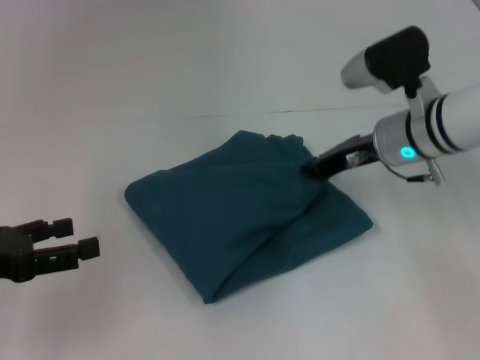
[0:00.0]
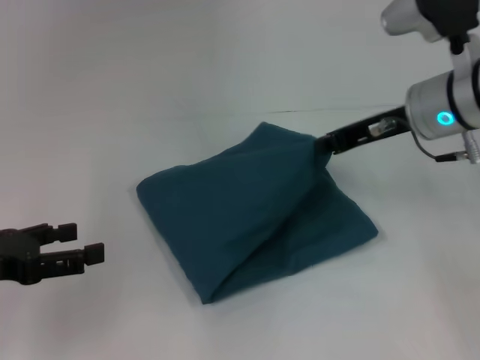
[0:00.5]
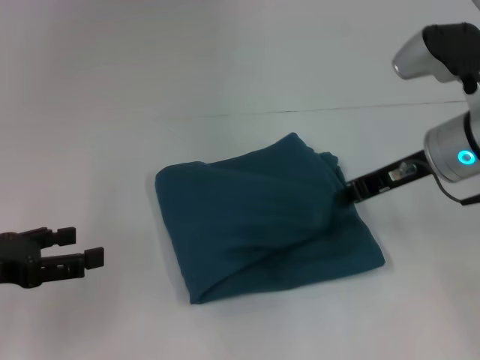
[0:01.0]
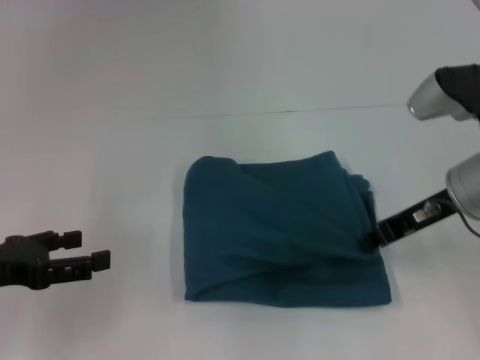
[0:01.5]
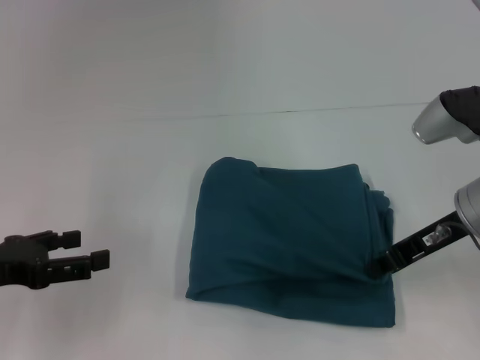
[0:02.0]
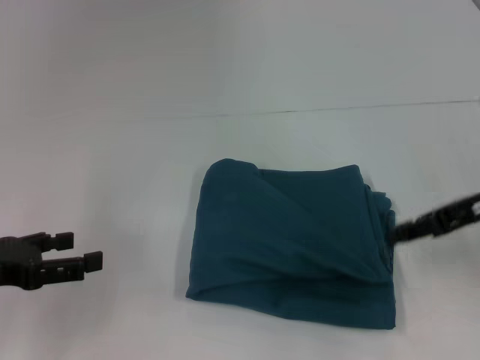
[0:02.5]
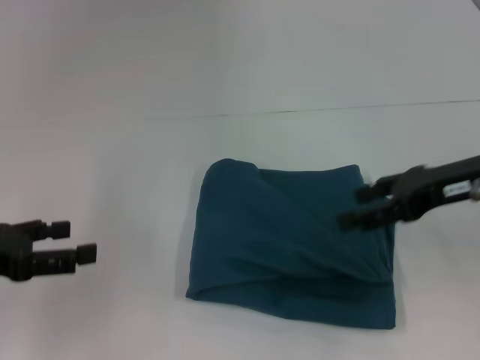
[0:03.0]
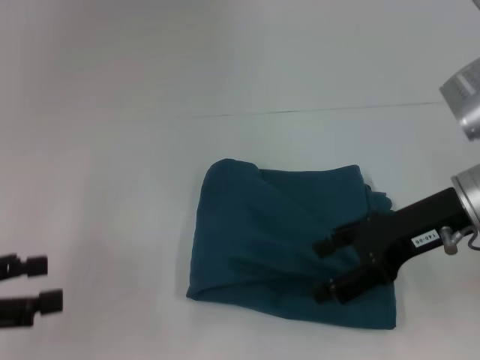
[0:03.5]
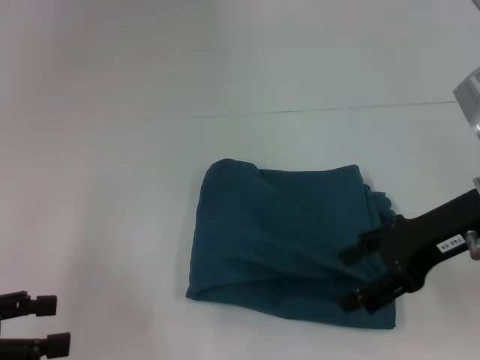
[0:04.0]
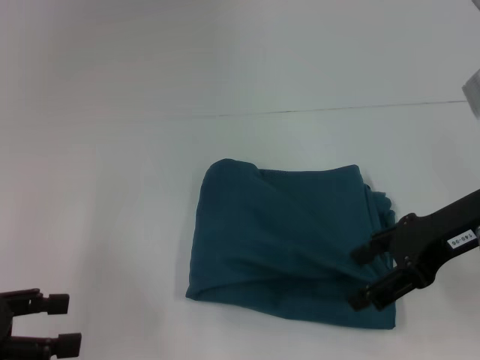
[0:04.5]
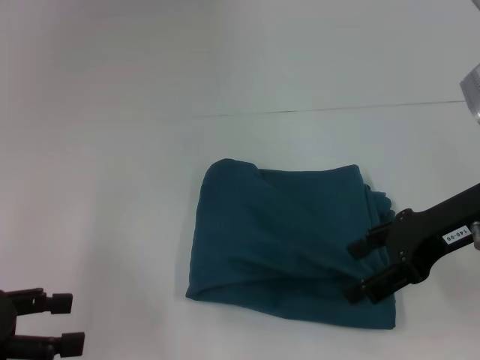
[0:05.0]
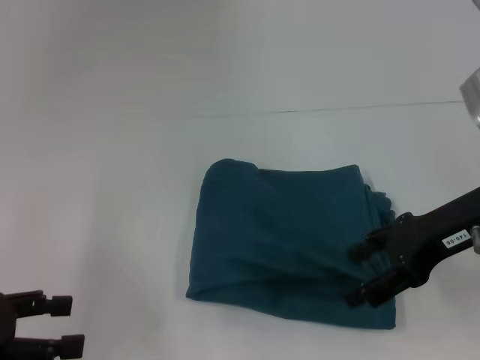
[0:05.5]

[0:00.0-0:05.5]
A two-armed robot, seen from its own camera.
0:00.0 to 0:02.0: The right gripper travels backward and to the right by about 10 cm.
0:02.0 to 0:03.5: The left gripper changes place by about 5 cm, while the right gripper opens up.
0:03.5 to 0:05.5: The grippers stay close to where they were, moving slightly.

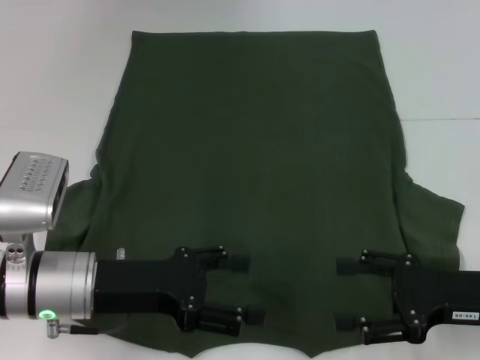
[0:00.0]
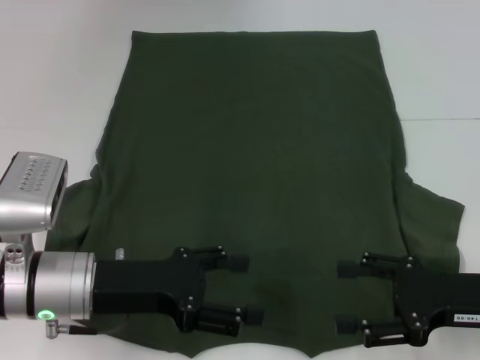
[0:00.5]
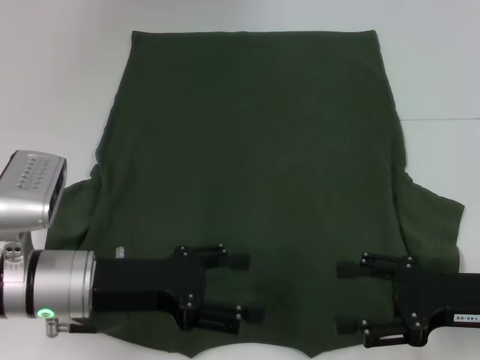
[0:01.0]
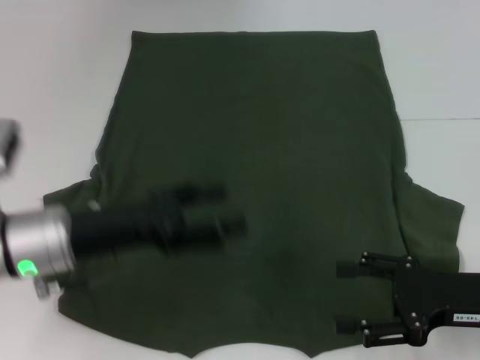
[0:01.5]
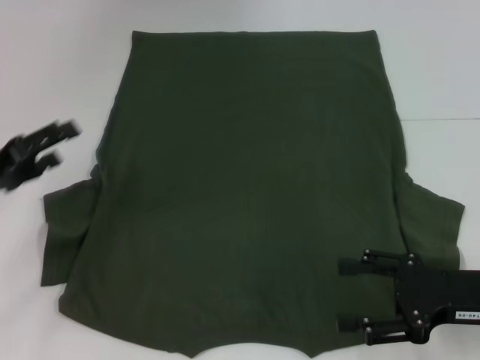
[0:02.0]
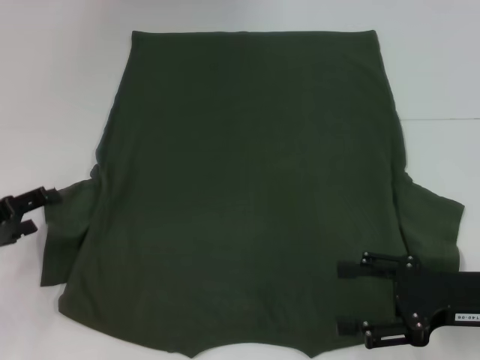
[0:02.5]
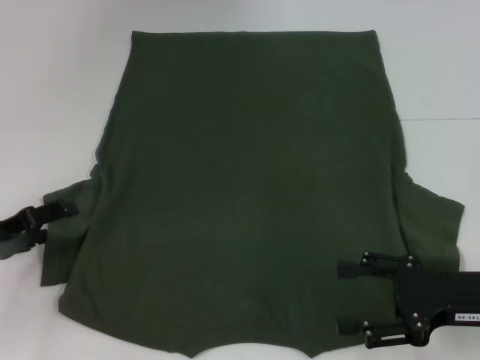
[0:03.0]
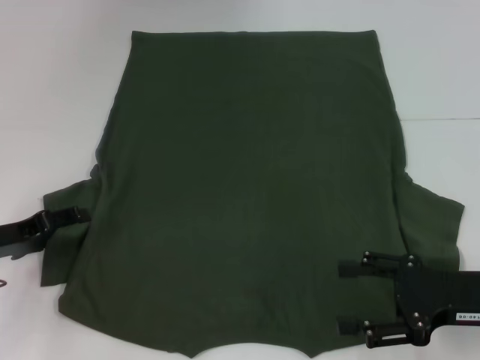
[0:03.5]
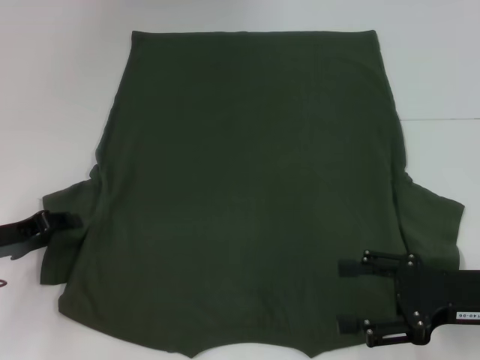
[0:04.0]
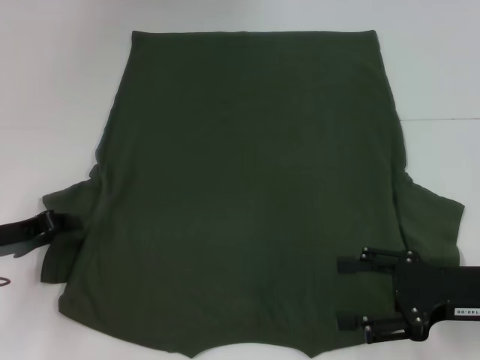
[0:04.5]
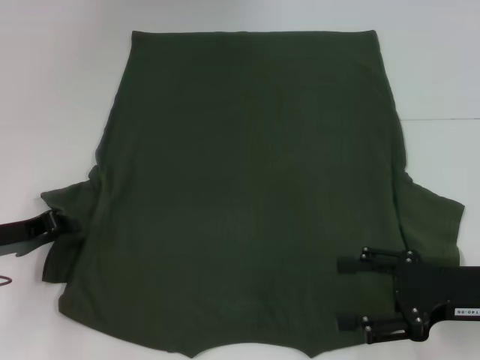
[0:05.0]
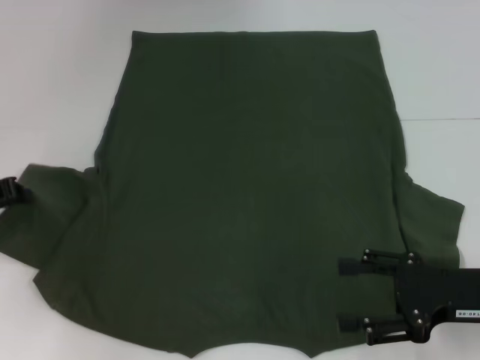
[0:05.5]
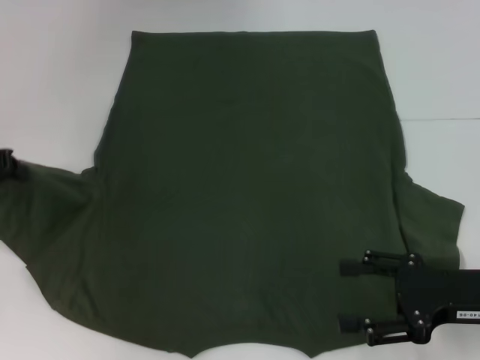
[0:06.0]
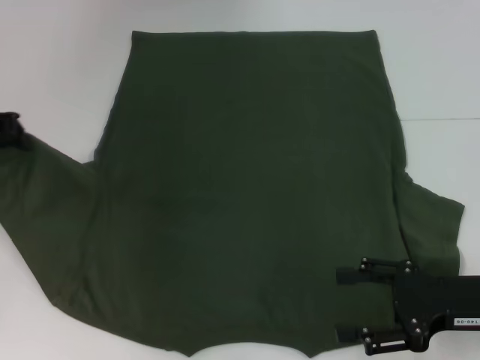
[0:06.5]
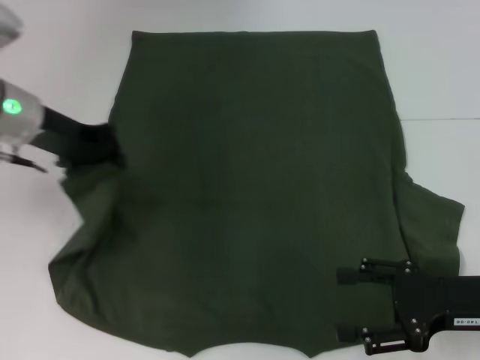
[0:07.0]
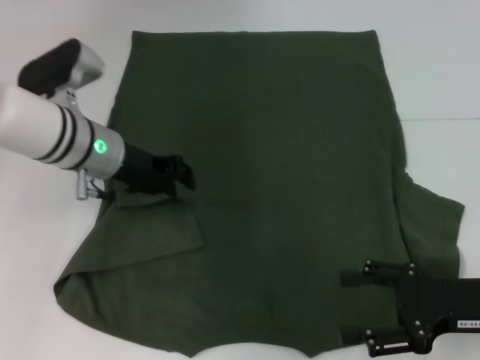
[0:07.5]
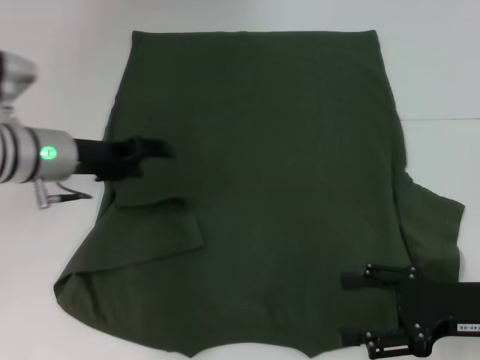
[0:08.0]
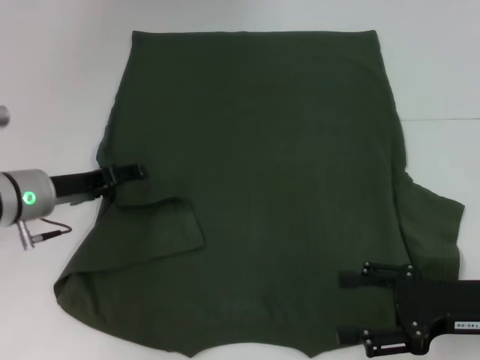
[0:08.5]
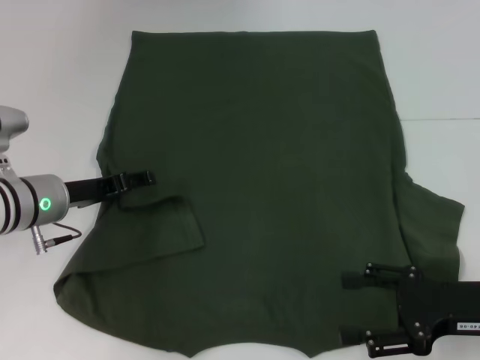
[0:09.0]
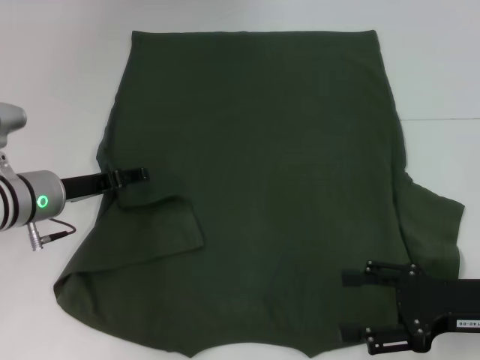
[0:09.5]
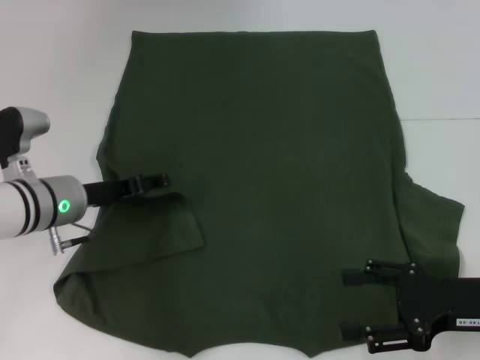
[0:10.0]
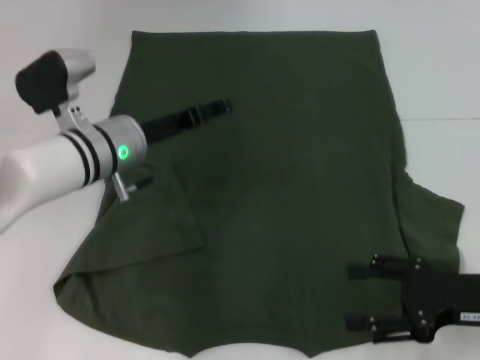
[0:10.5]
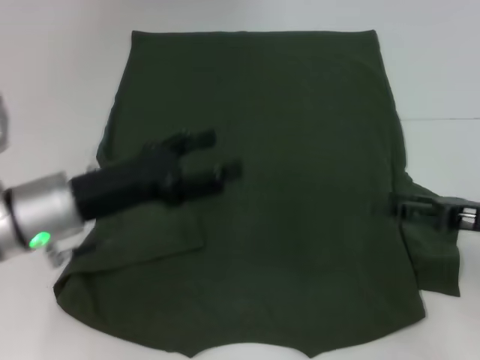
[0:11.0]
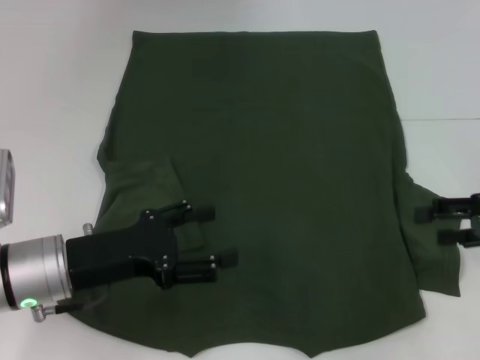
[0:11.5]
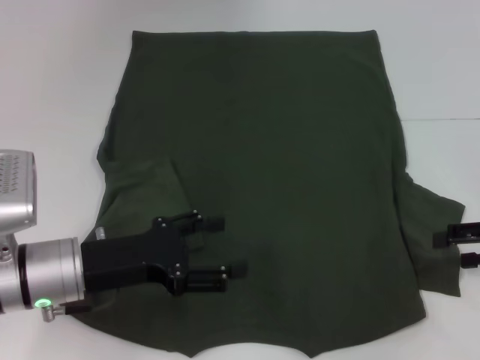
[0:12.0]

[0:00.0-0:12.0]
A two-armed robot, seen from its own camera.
Step, 0:00.0 to 0:10.0: Fold the bottom left sleeve with your left hand.
0:00.0 to 0:02.0: The left gripper goes some 15 cm to the left.
0:02.0 to 0:04.0: The left gripper travels downward by approximately 5 cm, and closes up.
0:04.0 to 0:06.0: The left gripper goes some 10 cm upward and forward, and closes up.
0:06.0 to 0:08.0: The left gripper is displaced to the right by roughly 10 cm, and opens its fingers.
0:08.0 to 0:10.0: The left gripper is displaced downward by some 5 cm.
0:10.0 to 0:12.0: The left gripper moves backward, roughly 10 cm; the right gripper goes approximately 10 cm to the right and forward.

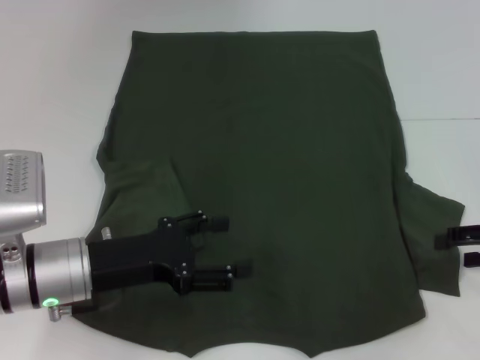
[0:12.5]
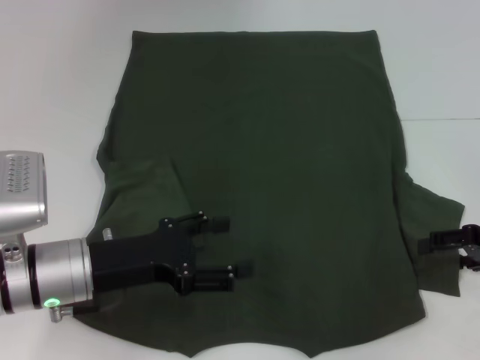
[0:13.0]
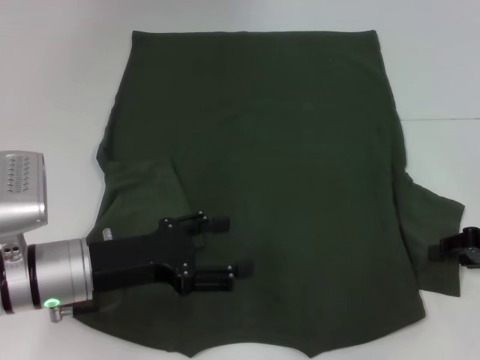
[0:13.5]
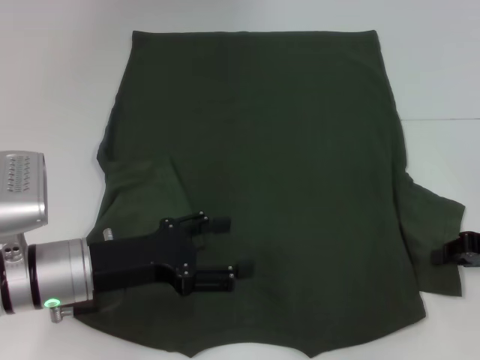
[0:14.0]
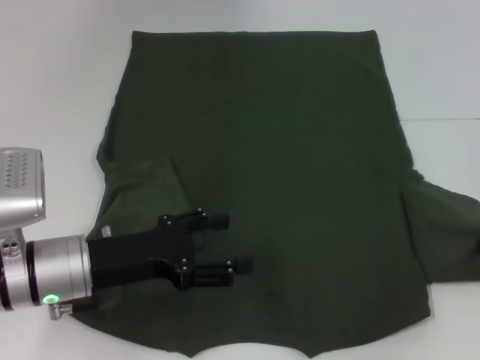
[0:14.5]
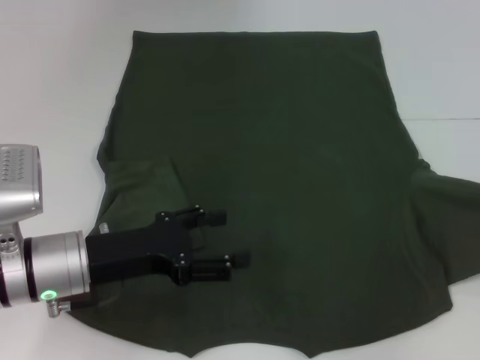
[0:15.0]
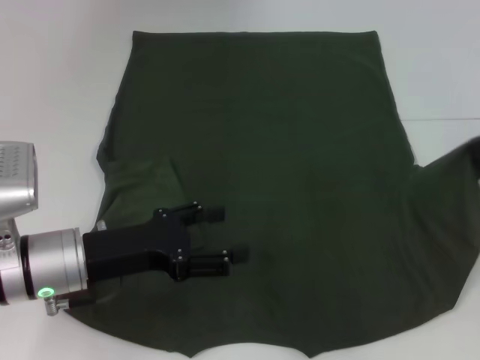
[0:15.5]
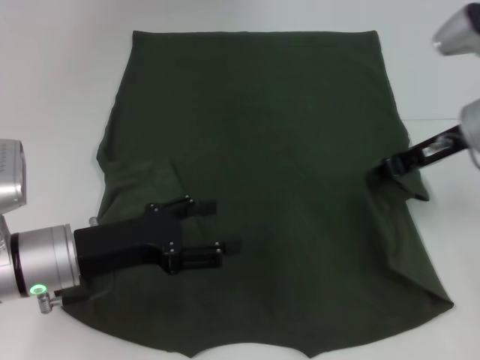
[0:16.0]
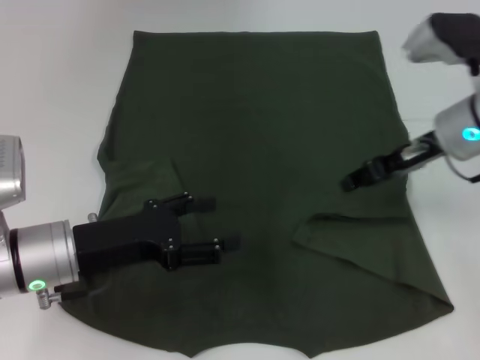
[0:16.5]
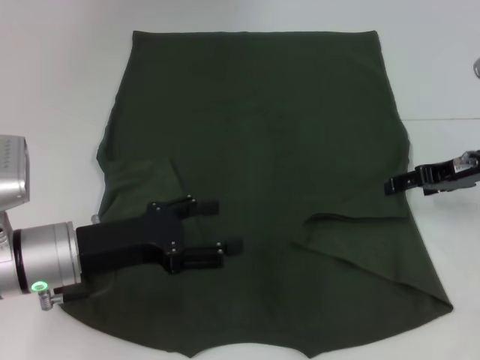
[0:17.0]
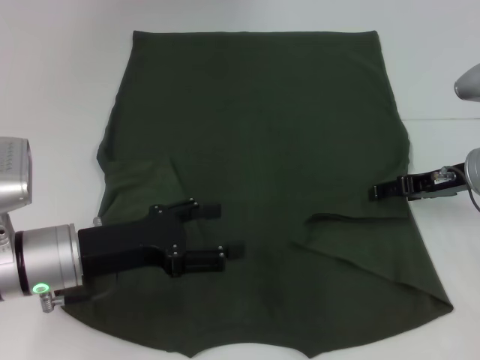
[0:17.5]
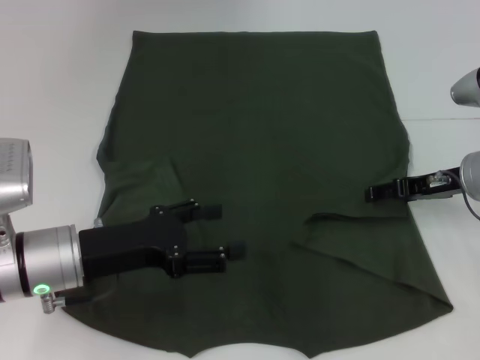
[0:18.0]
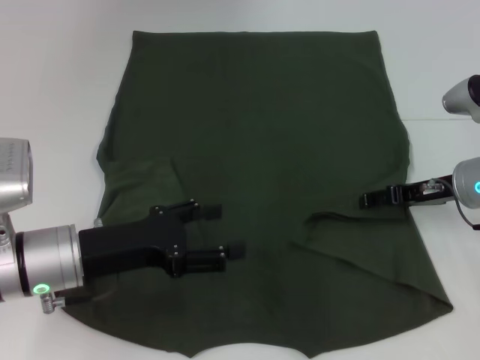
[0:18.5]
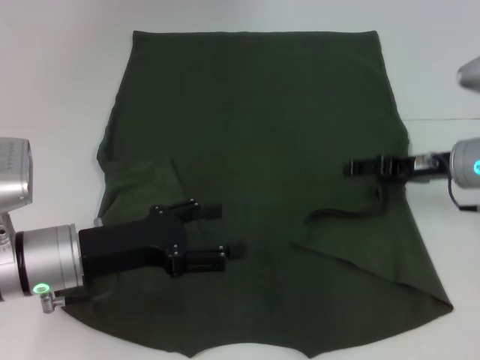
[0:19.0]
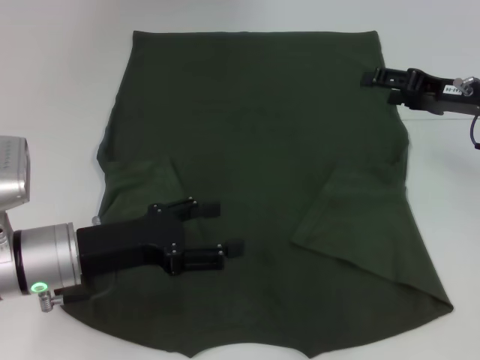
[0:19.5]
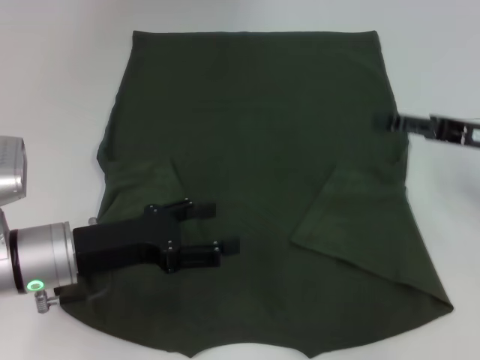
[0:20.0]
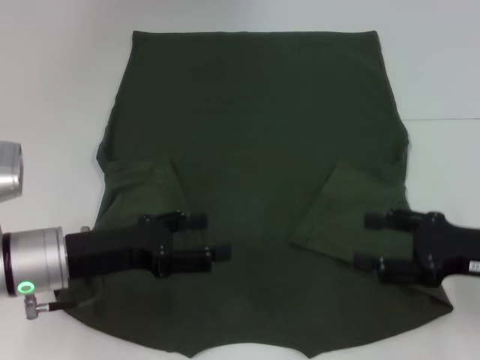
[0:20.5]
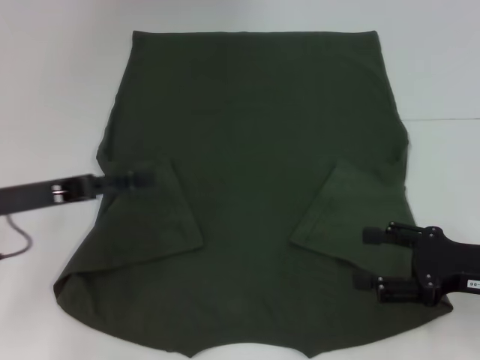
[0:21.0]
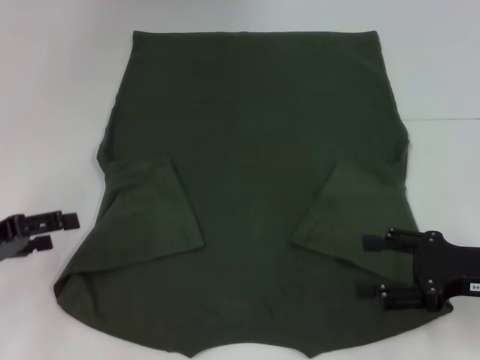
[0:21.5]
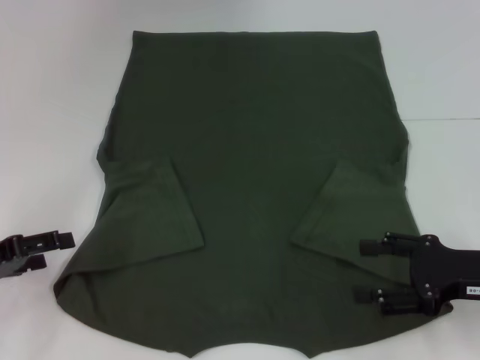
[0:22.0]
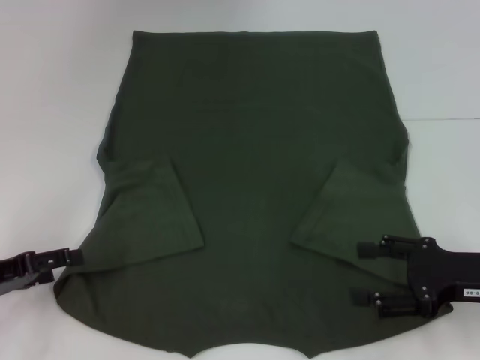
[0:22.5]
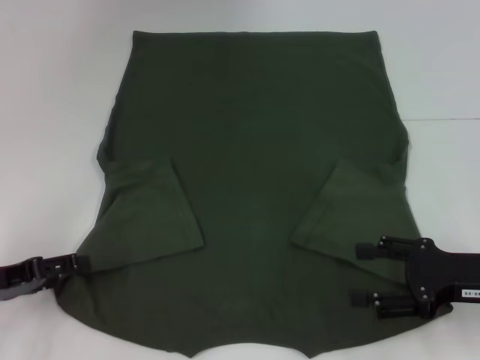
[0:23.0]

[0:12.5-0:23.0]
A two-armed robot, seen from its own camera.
Step, 0:12.5 to 0:19.0: Fold the bottom right sleeve with your right hand.
0:12.5 to 0:14.5: The right gripper closes.
0:14.5 to 0:16.5: The right gripper heads to the left and forward, covering some 20 cm, and opens its fingers.
0:16.5 to 0:19.0: The right gripper shifts about 5 cm downward, and opens up.
0:19.0 to 0:21.0: The right gripper heads backward, covering about 15 cm. The left gripper goes roughly 10 cm to the left.
0:21.0 to 0:23.0: The left gripper is displaced downward and to the left by approximately 10 cm.
